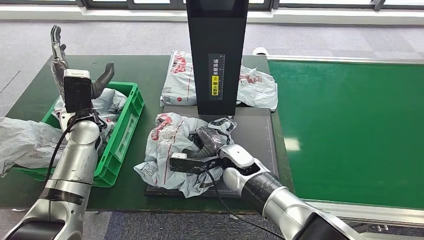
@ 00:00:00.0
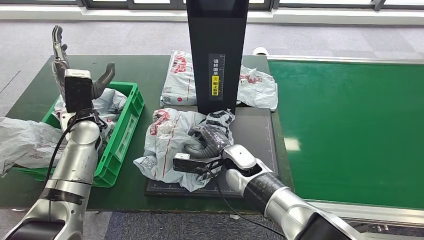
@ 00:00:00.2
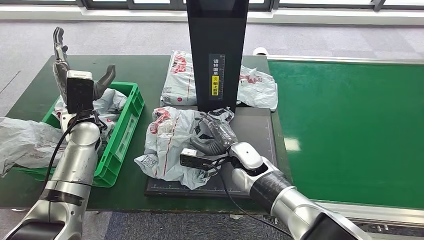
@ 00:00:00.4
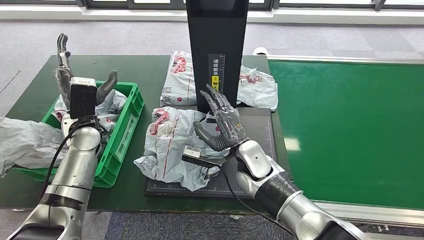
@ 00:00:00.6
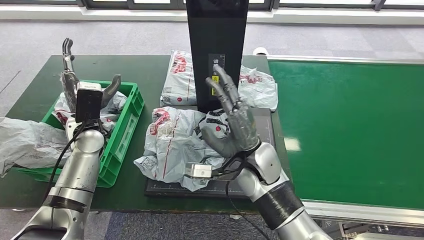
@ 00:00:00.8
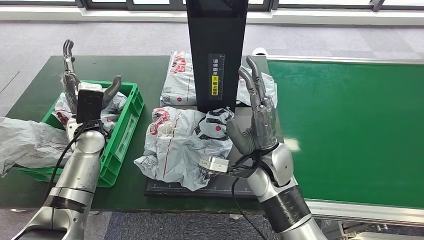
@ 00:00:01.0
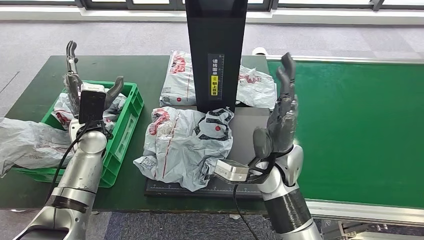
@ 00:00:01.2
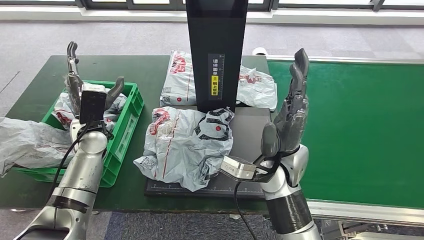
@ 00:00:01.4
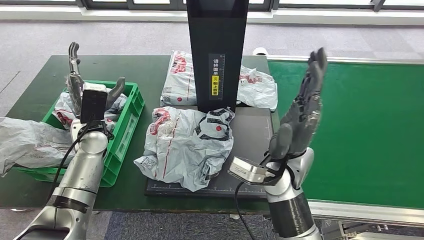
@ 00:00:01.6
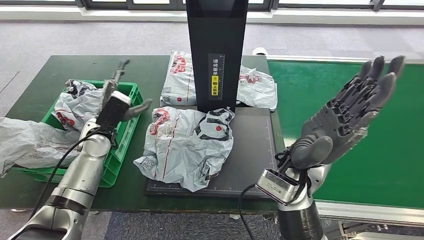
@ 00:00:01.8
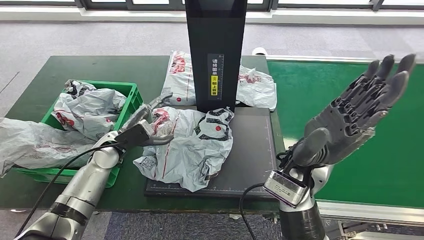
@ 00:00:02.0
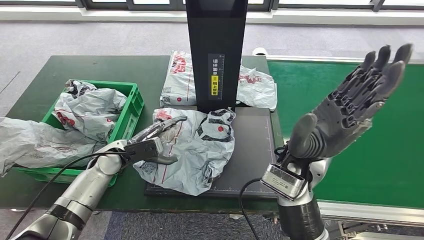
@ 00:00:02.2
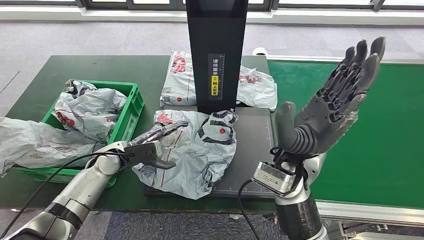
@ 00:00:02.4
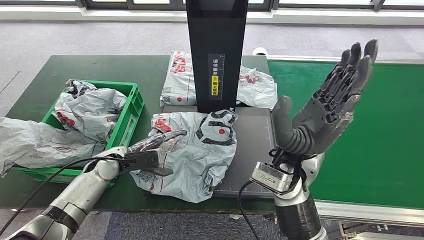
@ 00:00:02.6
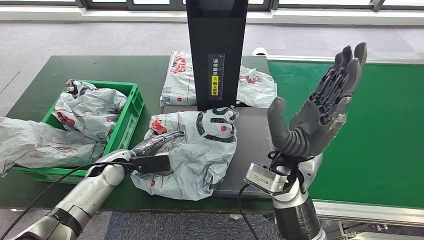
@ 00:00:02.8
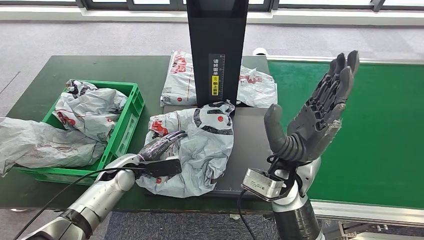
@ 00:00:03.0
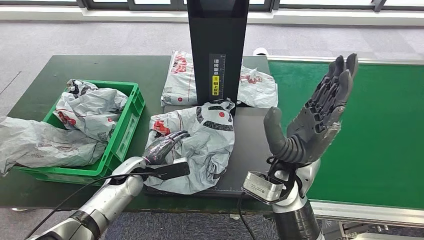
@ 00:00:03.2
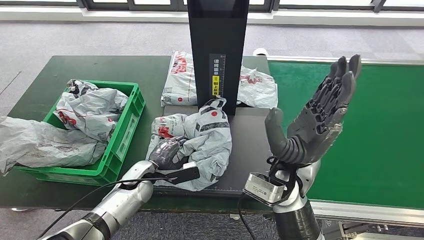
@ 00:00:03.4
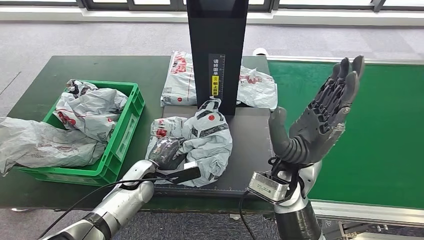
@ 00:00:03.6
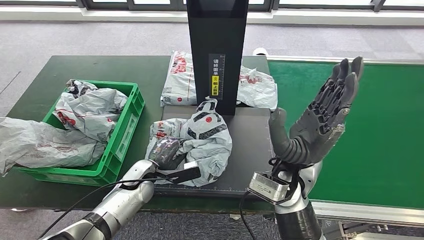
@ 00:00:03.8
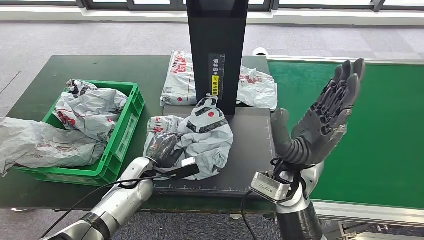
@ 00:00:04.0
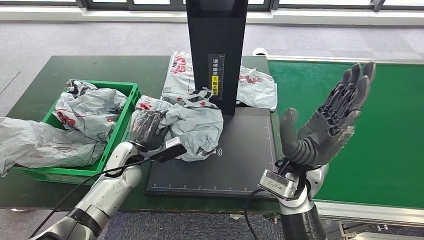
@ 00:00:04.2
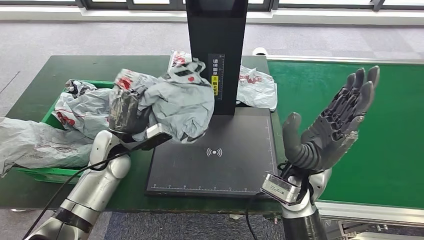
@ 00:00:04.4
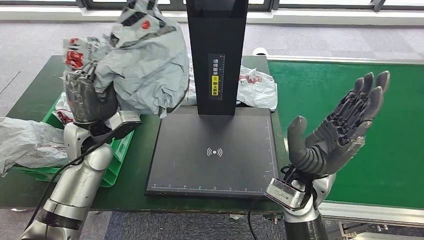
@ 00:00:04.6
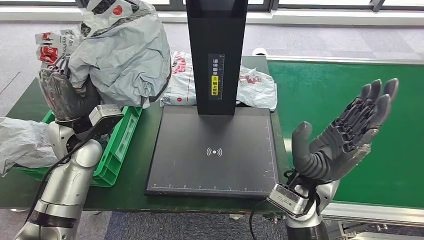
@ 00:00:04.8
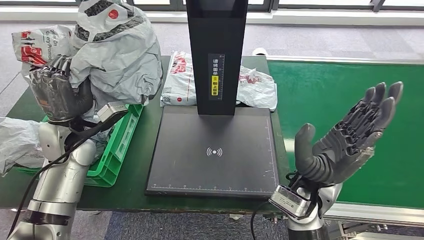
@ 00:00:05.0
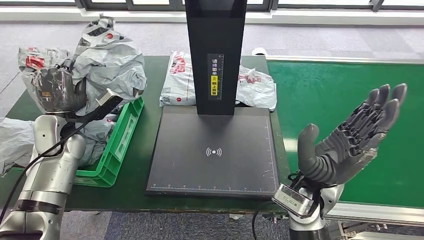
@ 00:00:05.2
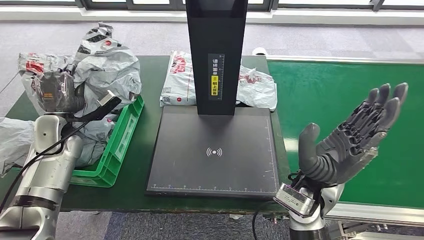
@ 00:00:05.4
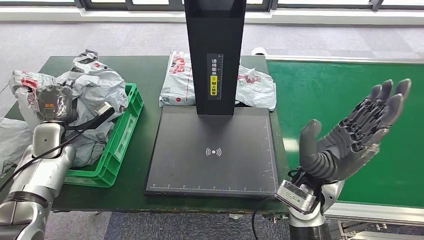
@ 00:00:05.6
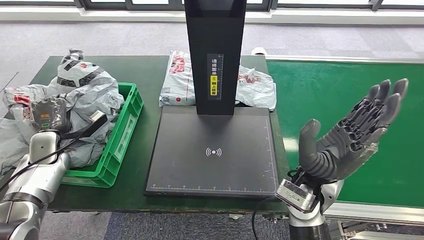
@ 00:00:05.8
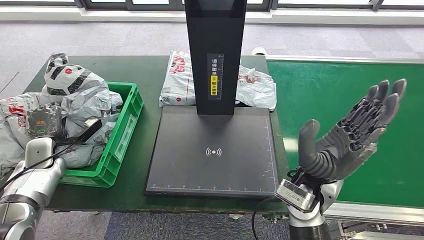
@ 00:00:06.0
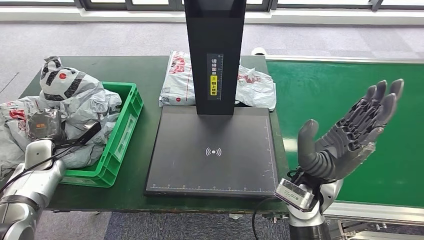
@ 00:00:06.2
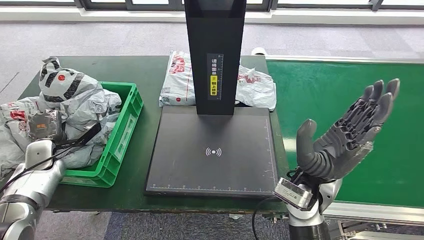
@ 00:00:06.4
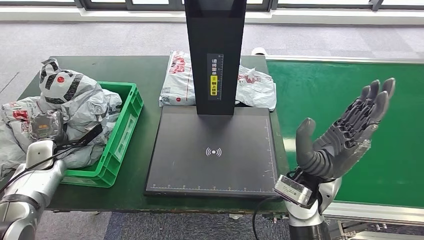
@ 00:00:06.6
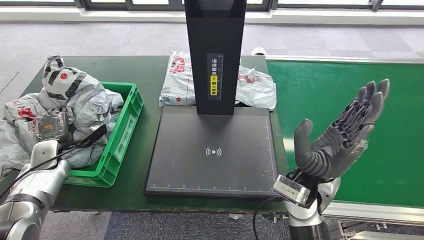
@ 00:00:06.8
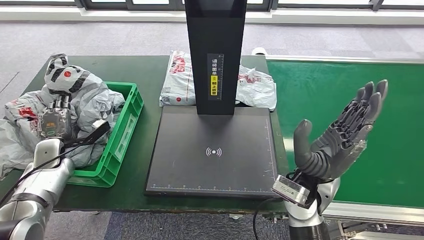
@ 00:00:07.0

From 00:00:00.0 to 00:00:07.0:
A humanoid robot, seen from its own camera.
Step, from 00:00:00.0 to 00:00:02.0: Place the parcel onto the inbound machine.
Step, from 00:00:02.2 to 00:00:05.4: Pick up the parcel from the inbound machine.
Step, from 00:00:05.8 to 00:00:07.0: Place the parcel into the delivery box.
From 00:00:02.8 to 00:00:04.2: The left hand is displaced to the right by approximately 5 cm.
From 00:00:05.6 to 00:00:07.0: The left hand heads downward, covering roughly 5 cm.
